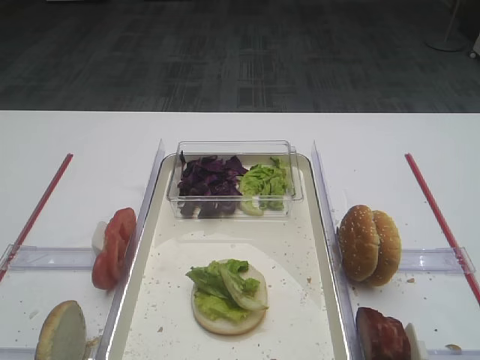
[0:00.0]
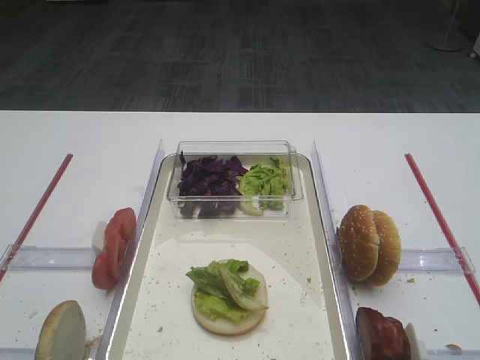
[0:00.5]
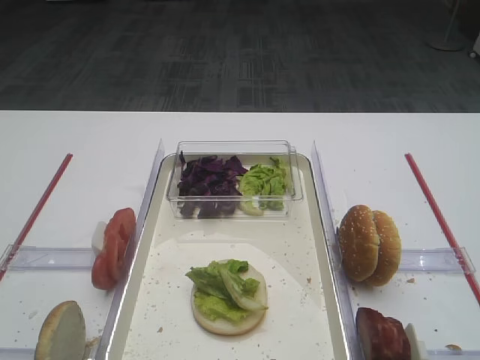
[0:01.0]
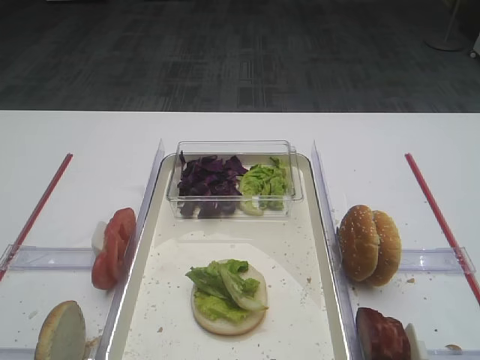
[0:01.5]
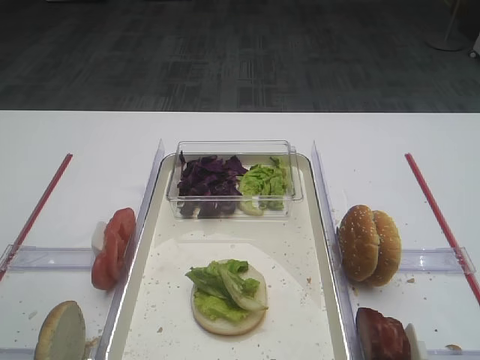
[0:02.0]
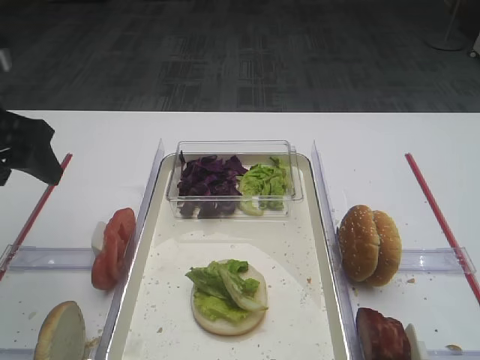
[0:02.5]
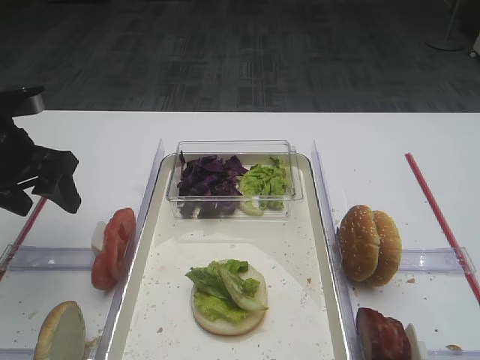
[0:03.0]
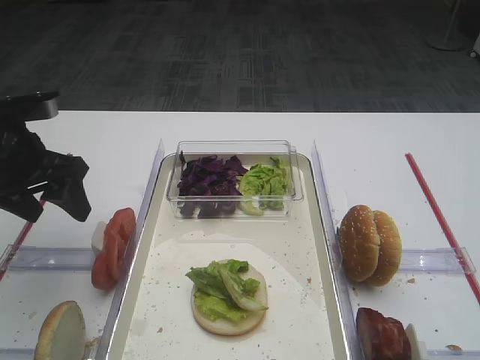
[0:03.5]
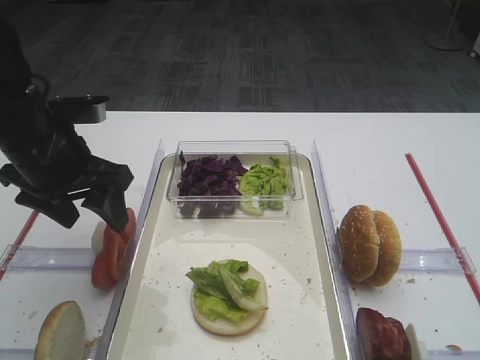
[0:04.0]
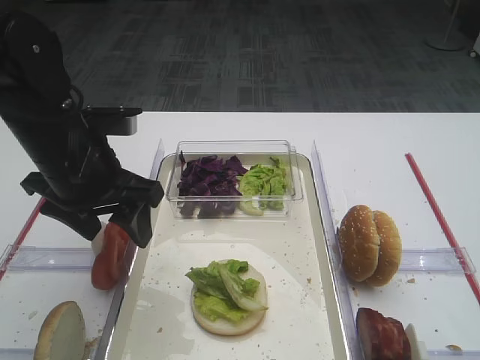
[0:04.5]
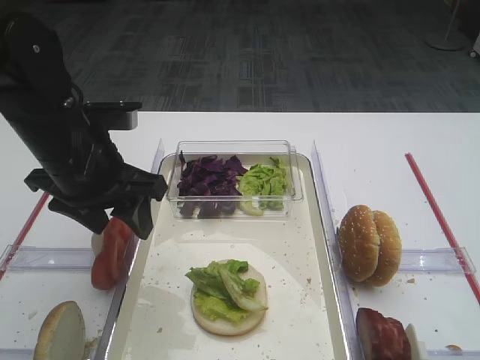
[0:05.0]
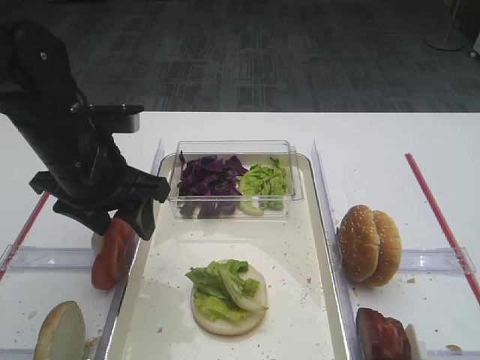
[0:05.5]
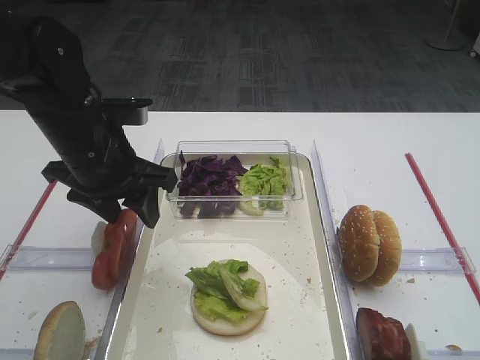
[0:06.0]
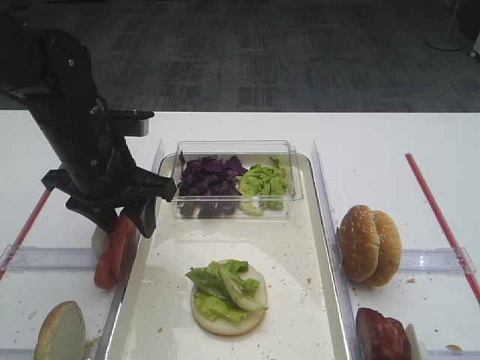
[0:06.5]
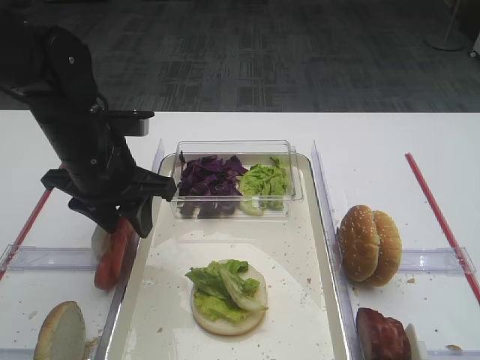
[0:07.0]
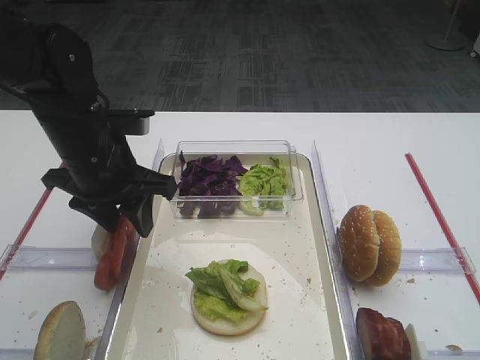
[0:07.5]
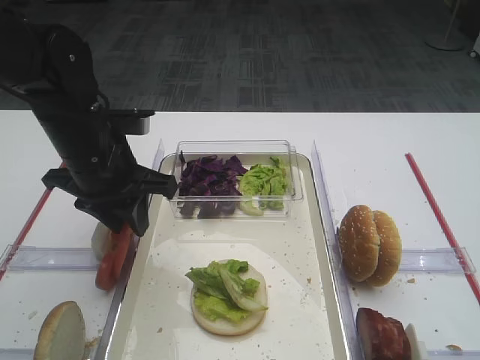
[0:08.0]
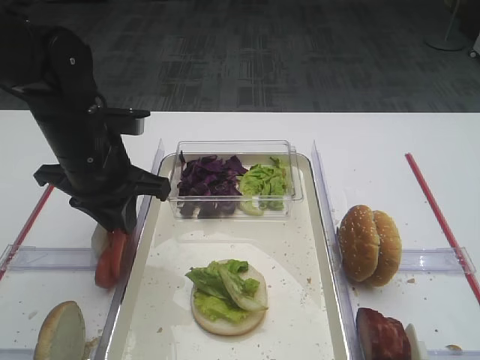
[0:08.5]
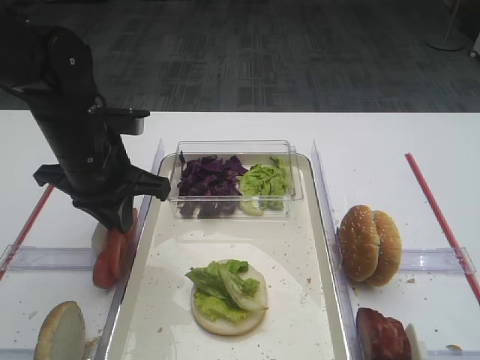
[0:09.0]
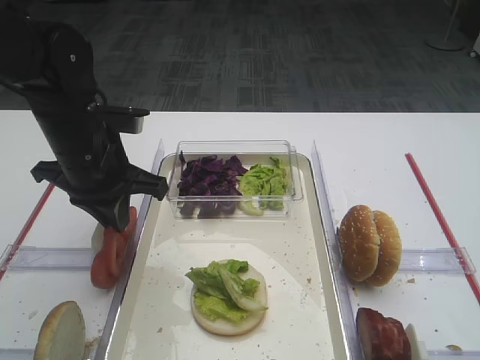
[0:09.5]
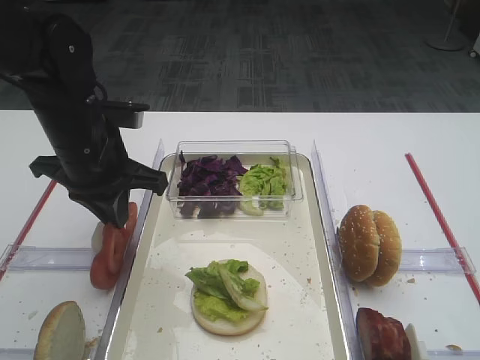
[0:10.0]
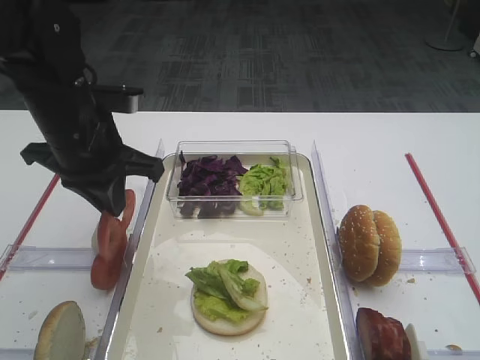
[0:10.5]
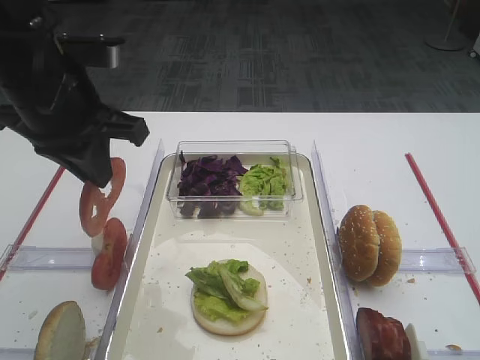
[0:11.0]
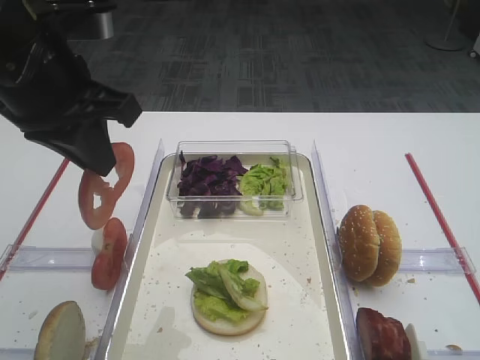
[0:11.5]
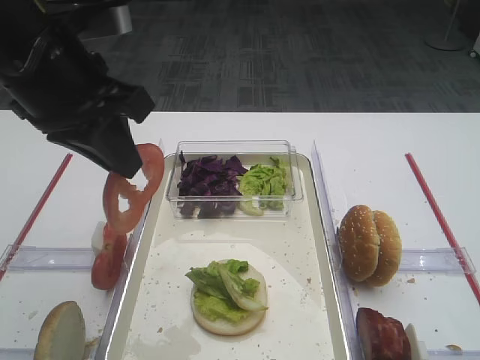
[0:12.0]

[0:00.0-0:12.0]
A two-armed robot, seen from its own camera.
Step, 0:00.0 to 0:10.5: Pick up the tomato slice with the left gripper.
0:02.0 to 0:04.0: The left gripper moves forward, downward and to the right, approximately 20 cm.
0:04.0 to 0:06.0: The left gripper ends up about 5 cm from where it was.
0:06.0 to 0:08.0: The grippers move only a little.
0:08.0 to 0:10.0: The left gripper closes.
0:10.0 to 0:12.0: The left gripper moves upward and backward, roughly 15 cm.

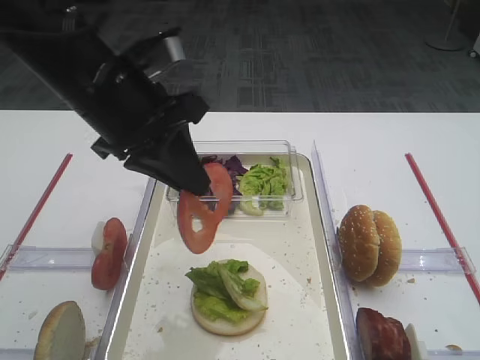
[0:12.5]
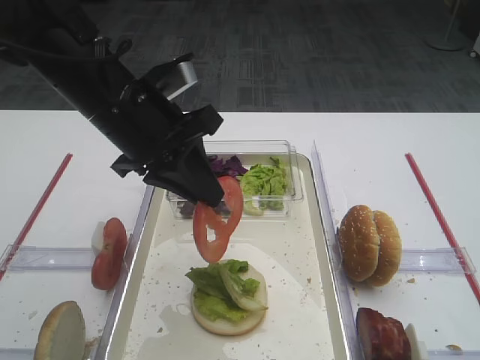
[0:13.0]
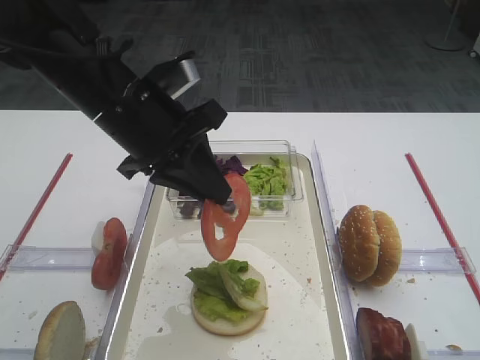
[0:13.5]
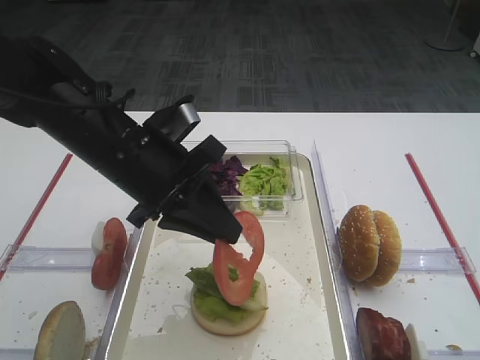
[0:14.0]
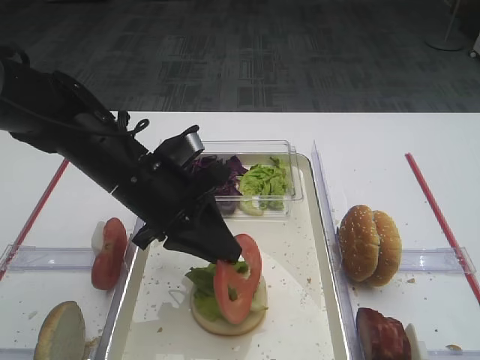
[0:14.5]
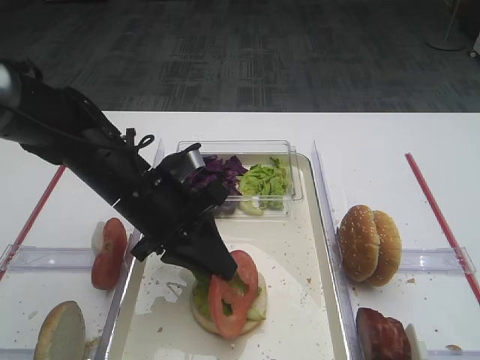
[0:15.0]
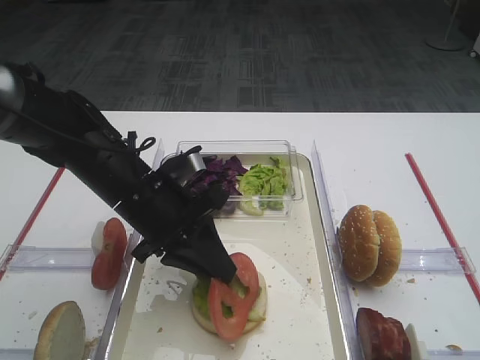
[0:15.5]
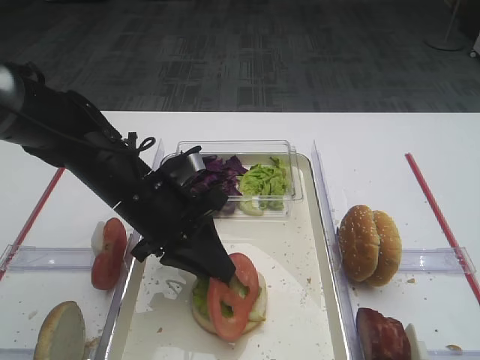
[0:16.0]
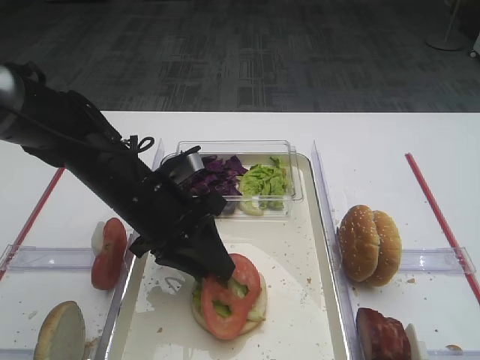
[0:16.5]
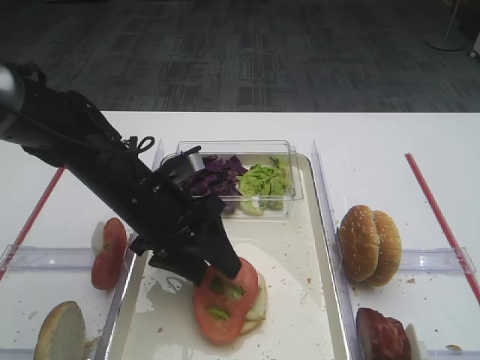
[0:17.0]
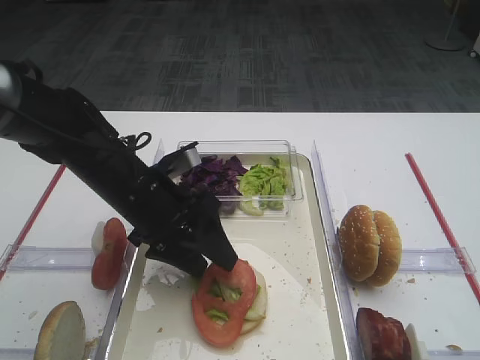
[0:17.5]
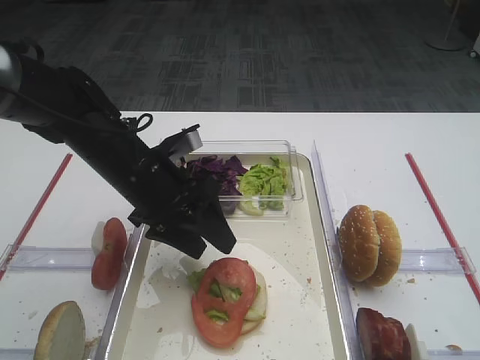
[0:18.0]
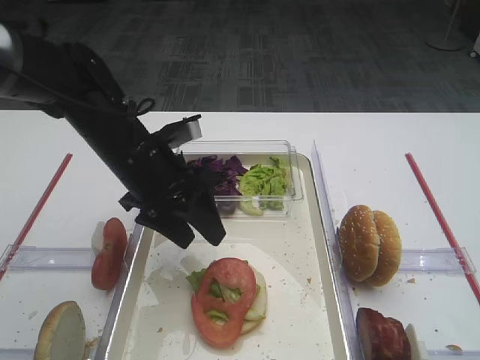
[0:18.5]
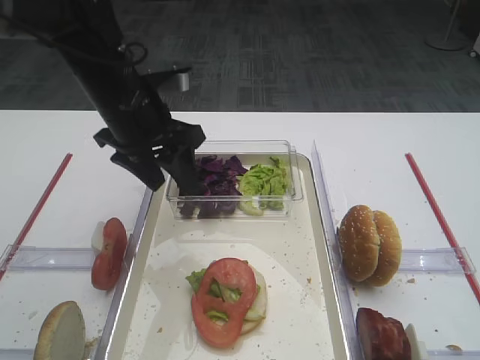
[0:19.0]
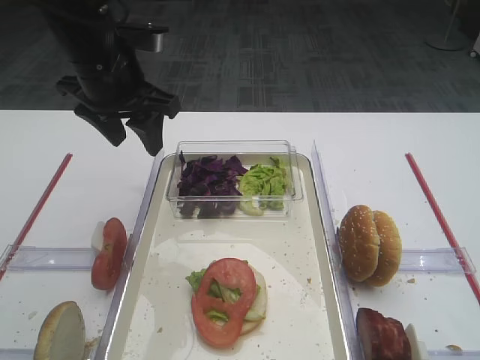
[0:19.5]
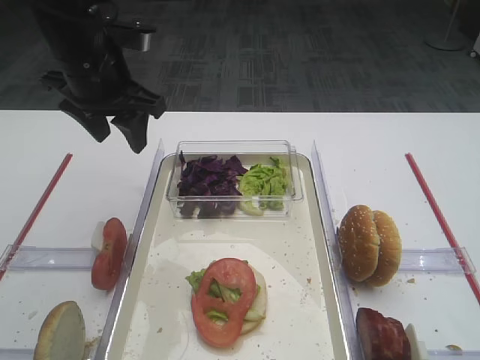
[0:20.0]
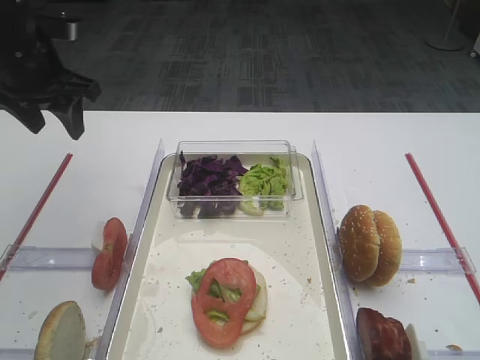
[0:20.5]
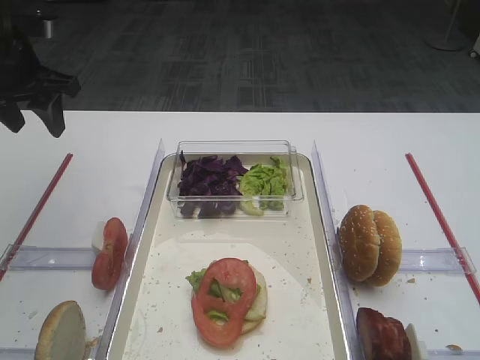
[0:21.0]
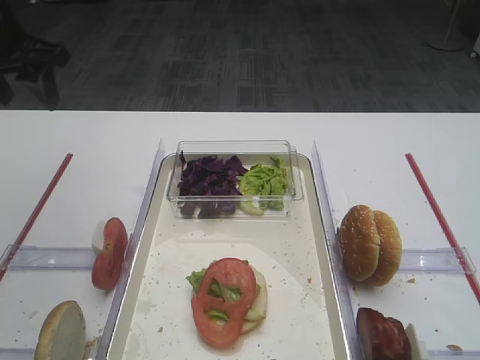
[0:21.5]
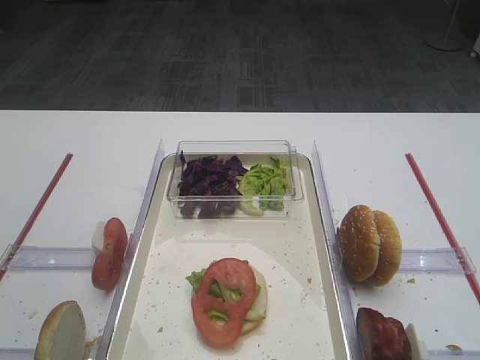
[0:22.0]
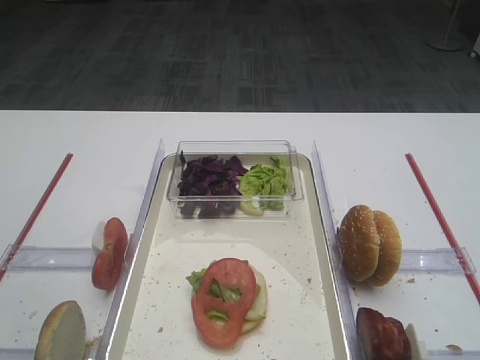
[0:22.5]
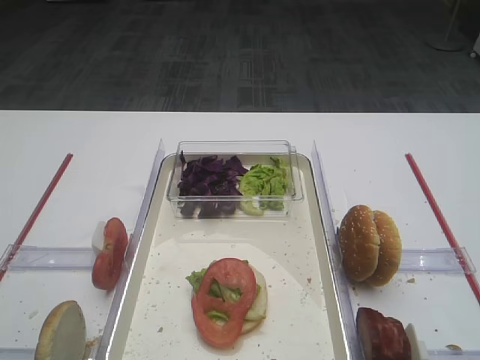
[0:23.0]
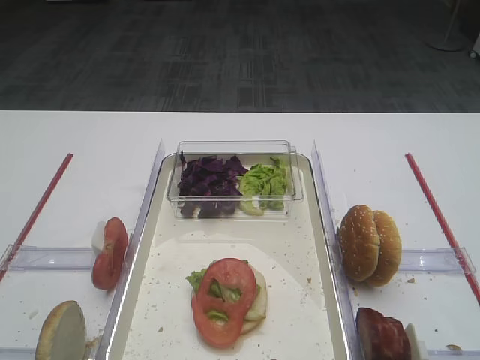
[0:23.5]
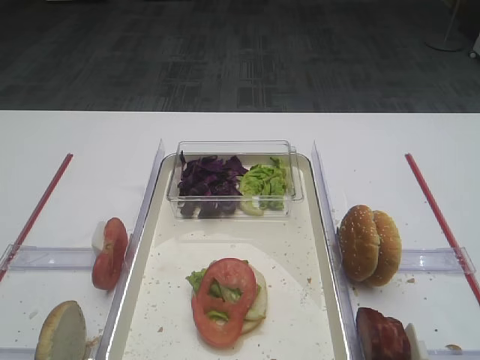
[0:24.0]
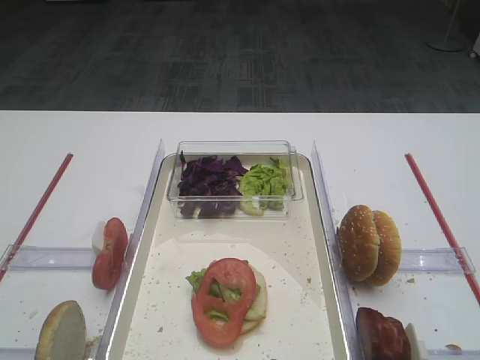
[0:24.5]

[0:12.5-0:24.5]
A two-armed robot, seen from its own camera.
Step, 0:12.5 to 0:20.0: Place the tomato slice on the lettuce leaf with the left gripper.
0:12.5 to 0:14.5: The left gripper is displaced downward by roughly 10 cm.
0:14.5 to 0:16.5: The grippers stay close to where they were, moving slightly.
0:16.5 to 0:18.5: The left gripper opens its fingers.
0:18.5 to 0:20.5: The left gripper heads to the left, upward and forward, covering roughly 20 cm.
0:20.5 to 0:22.5: The left gripper travels backward and upward by about 25 cm.

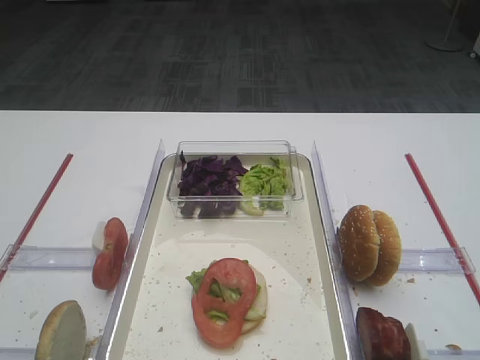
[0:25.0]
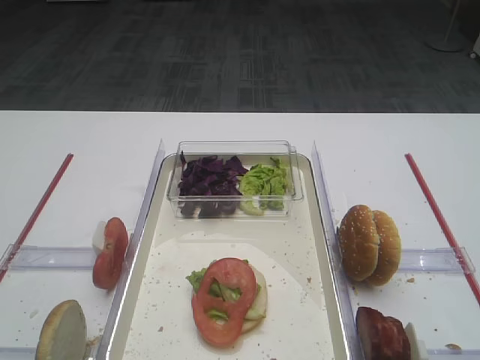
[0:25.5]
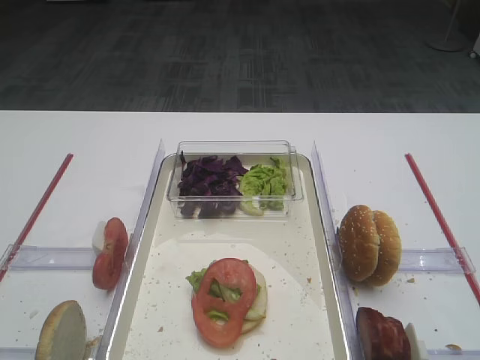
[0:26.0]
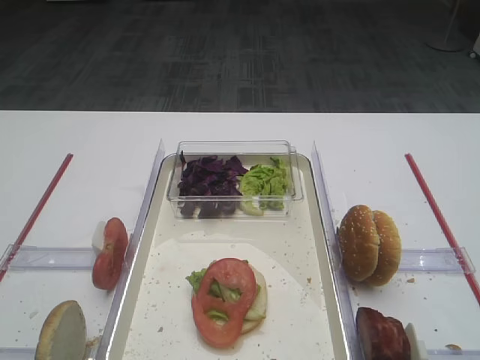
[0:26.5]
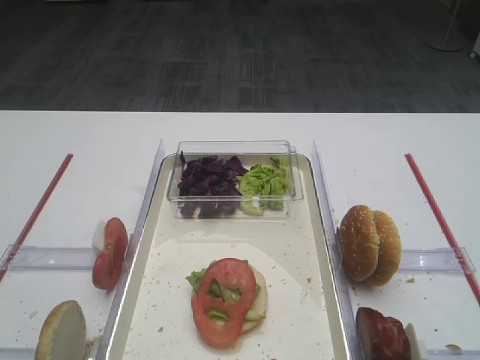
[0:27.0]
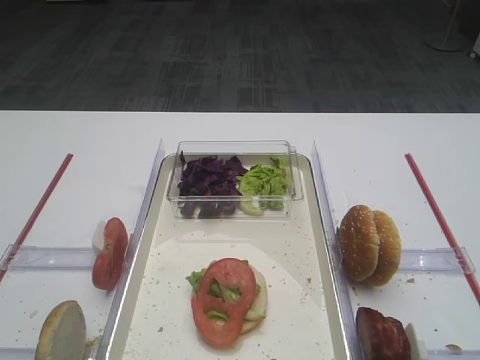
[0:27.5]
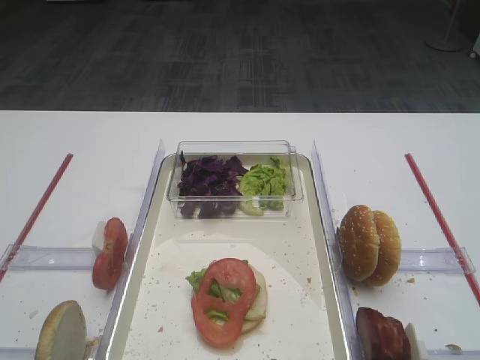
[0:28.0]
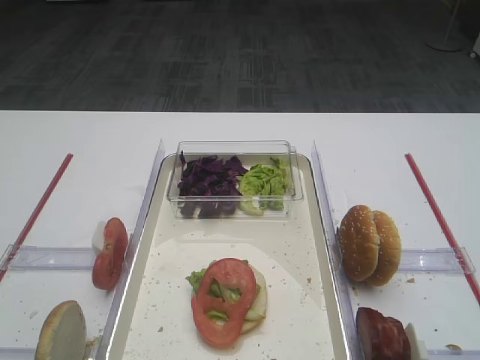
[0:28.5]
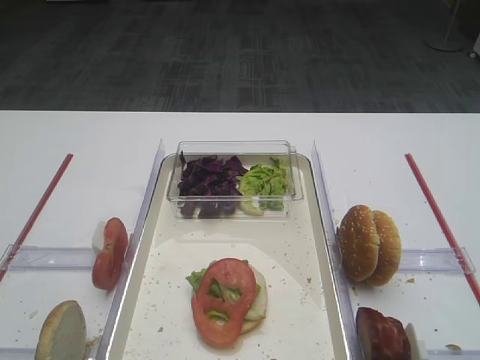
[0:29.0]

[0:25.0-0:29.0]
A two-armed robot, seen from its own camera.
0:25.0 to 0:29.0: Both grippers stay put.
